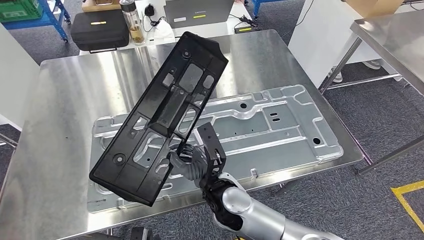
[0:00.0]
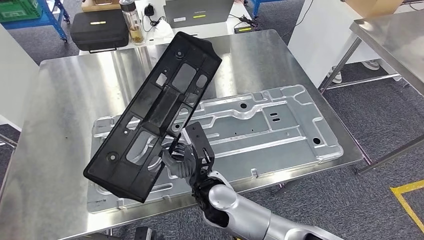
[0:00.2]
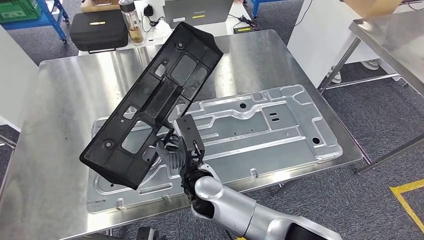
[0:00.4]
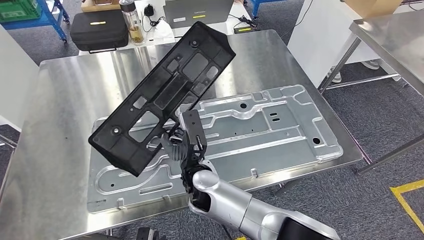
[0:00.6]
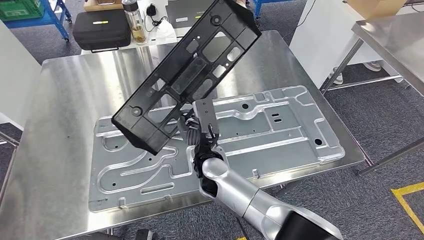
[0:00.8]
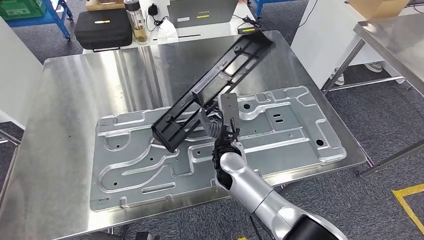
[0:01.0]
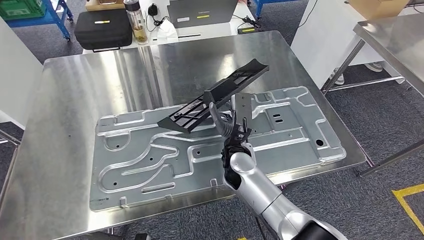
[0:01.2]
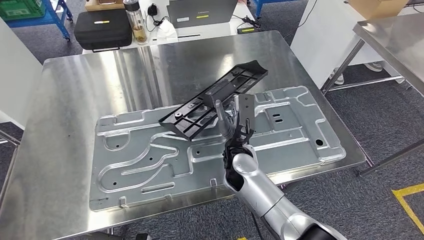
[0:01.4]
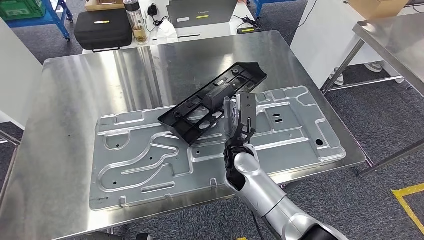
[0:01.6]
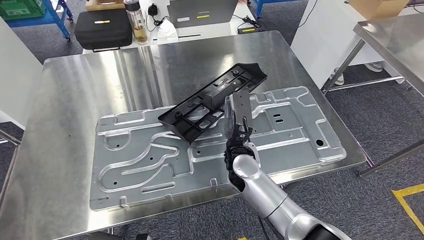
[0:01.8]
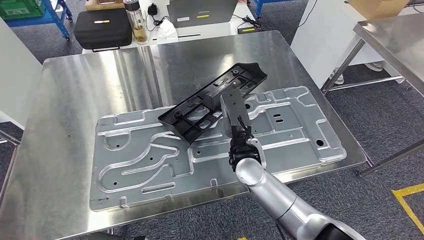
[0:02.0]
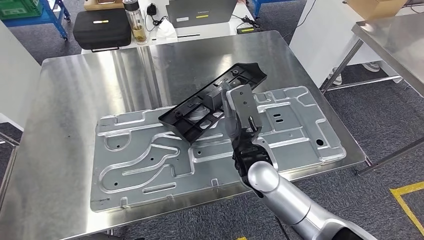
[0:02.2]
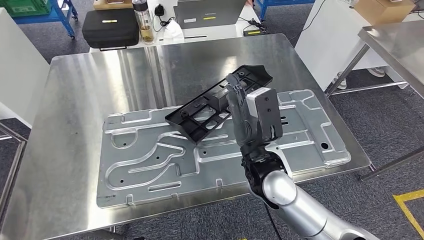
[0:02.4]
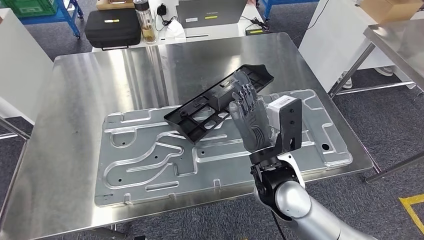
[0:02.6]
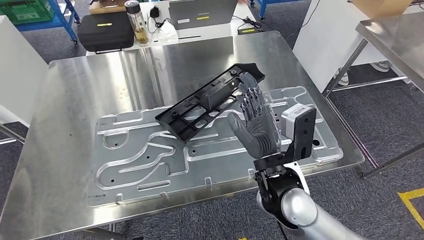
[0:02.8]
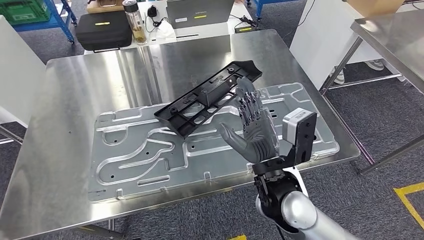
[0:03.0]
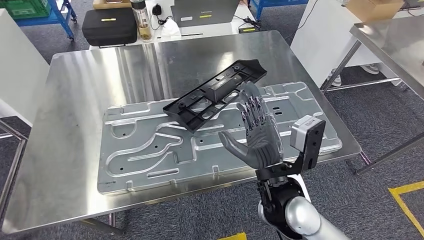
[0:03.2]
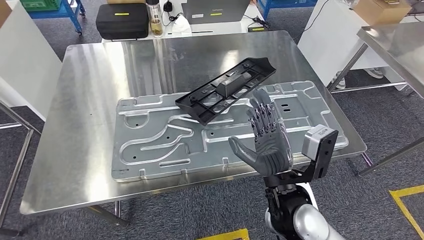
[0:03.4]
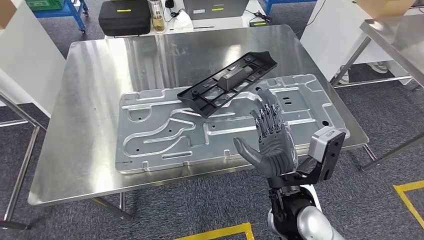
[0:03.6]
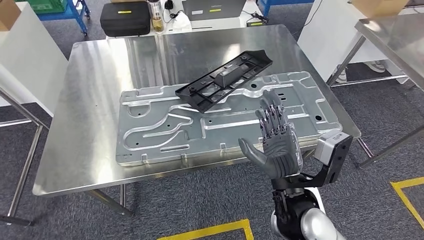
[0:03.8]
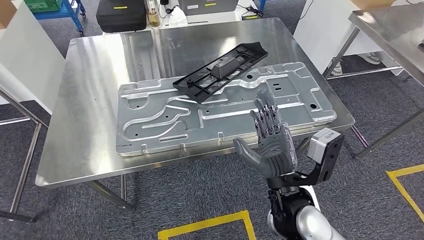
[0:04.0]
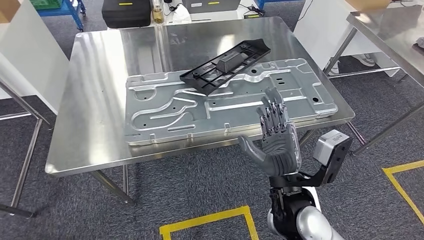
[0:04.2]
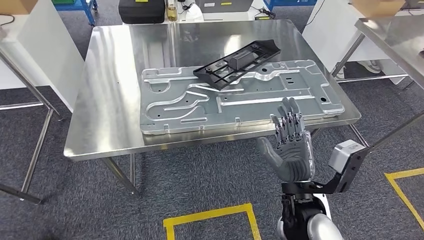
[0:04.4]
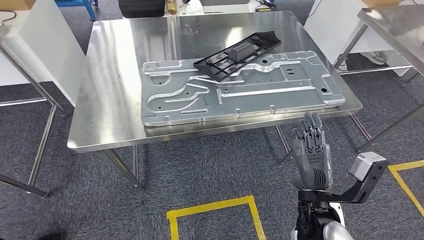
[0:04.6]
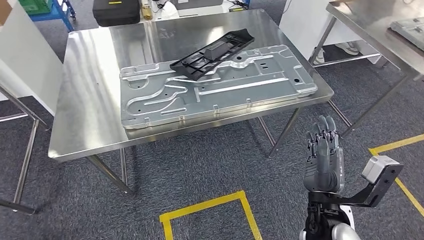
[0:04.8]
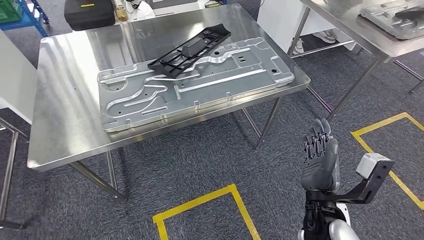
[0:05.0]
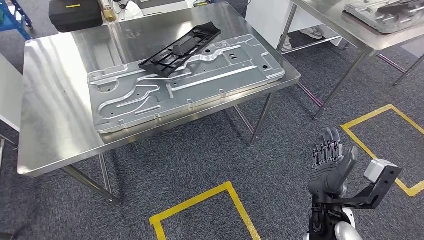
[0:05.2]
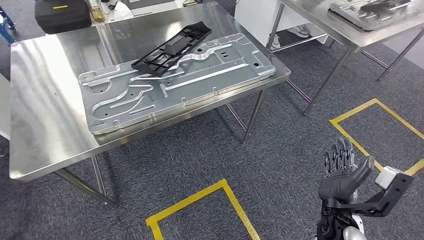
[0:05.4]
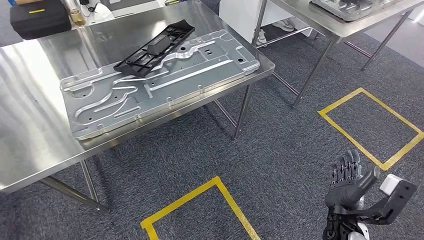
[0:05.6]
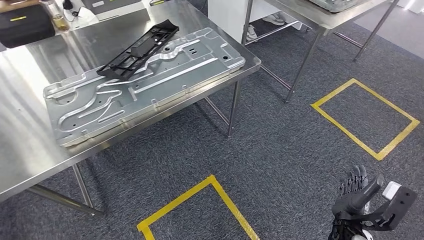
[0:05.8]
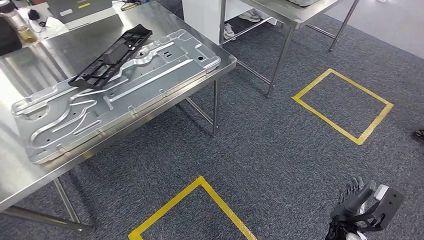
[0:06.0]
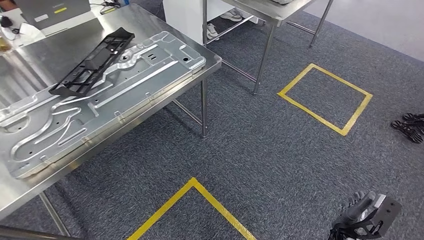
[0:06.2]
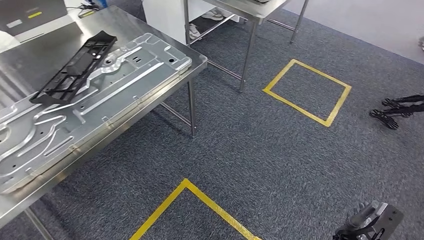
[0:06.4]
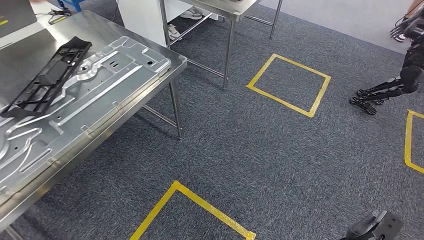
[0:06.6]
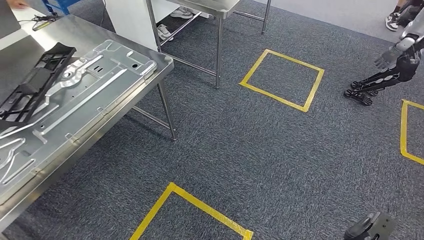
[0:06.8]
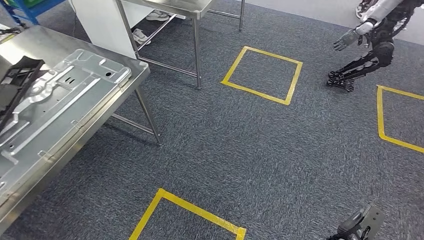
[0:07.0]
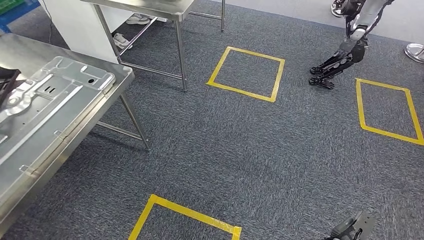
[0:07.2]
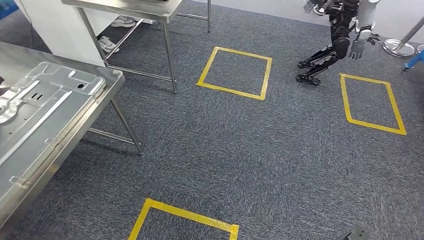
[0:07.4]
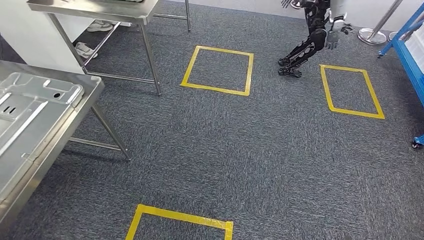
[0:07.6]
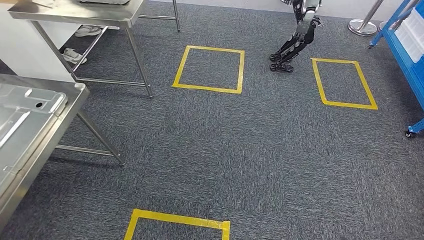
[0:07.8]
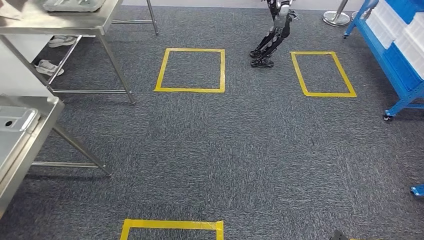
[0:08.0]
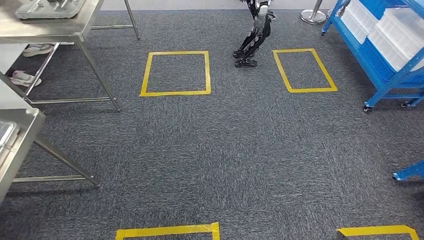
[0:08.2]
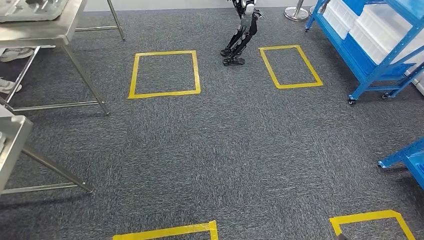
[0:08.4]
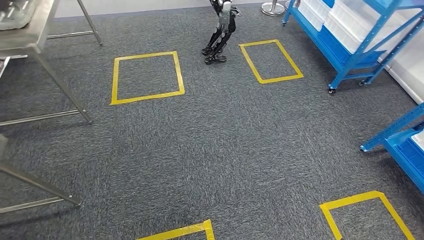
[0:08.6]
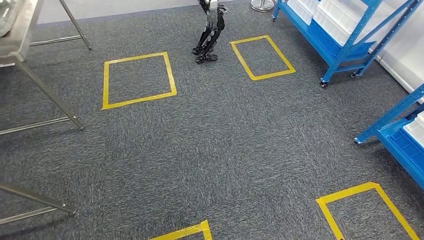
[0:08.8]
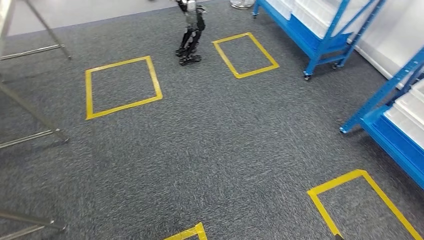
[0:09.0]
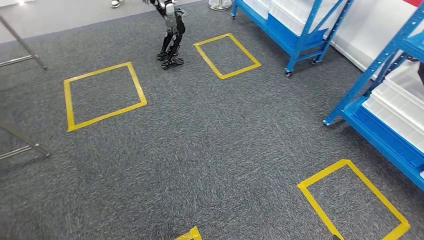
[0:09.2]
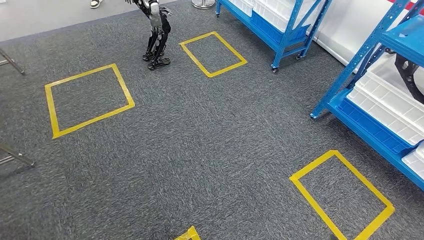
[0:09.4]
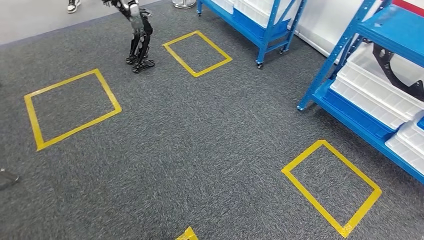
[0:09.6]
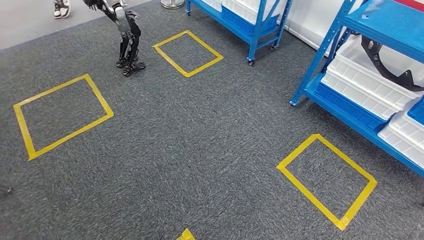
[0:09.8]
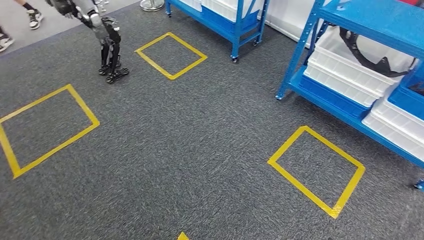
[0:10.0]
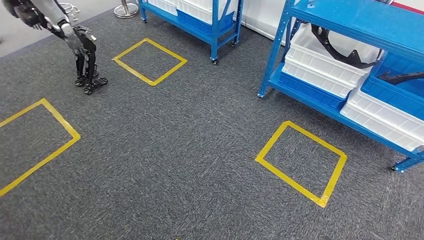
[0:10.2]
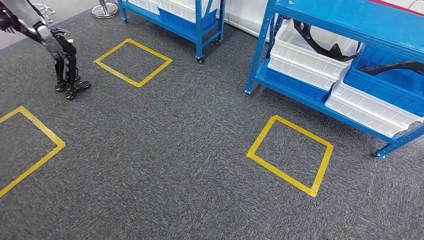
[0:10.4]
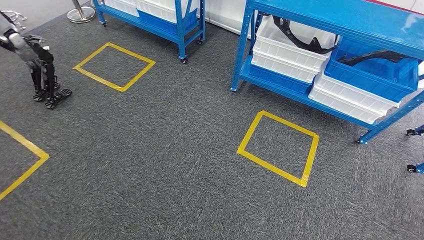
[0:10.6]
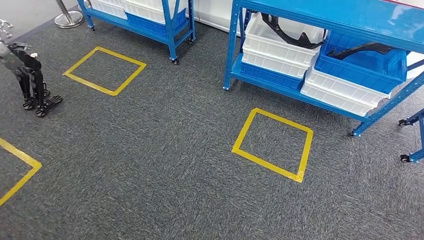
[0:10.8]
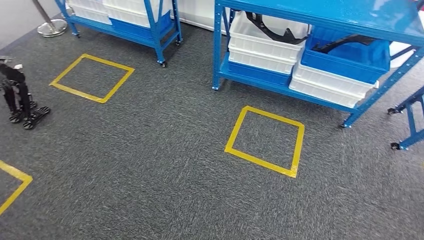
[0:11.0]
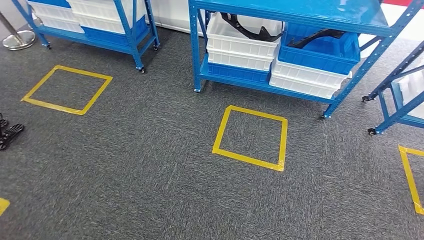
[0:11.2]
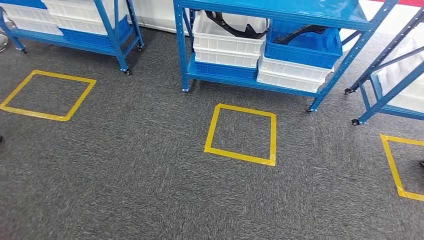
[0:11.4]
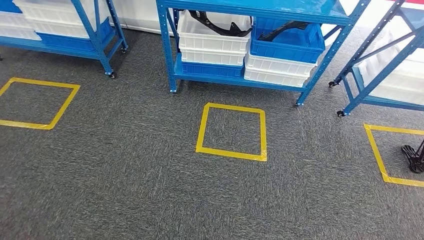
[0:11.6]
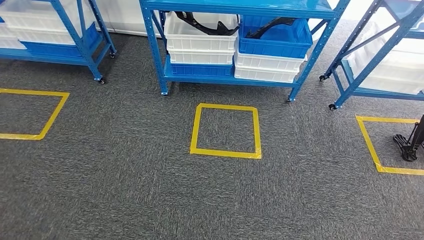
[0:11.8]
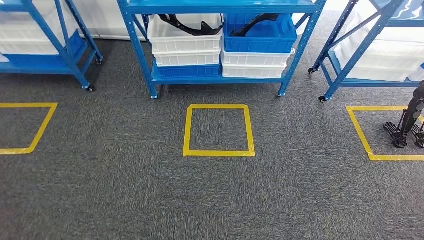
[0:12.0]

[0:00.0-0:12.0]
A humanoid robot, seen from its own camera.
Step, 0:00.0 to 0:04.8: Insert the large material into the corresponding hole on the workbench.

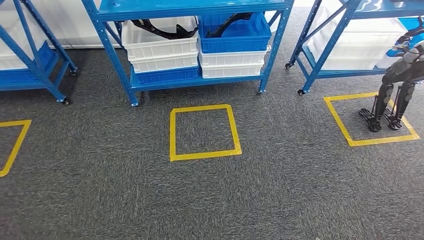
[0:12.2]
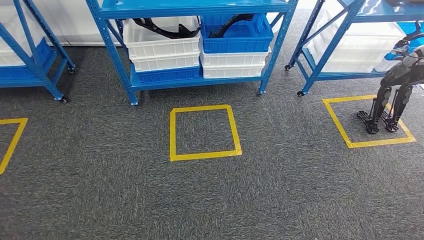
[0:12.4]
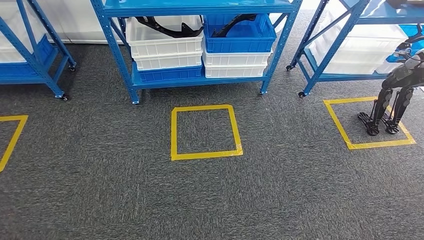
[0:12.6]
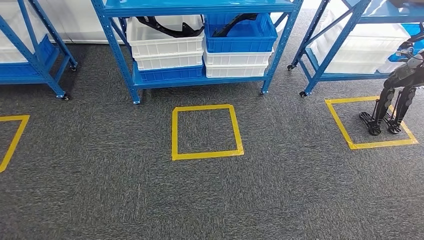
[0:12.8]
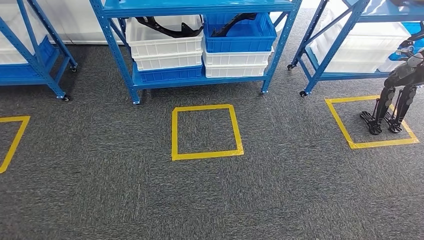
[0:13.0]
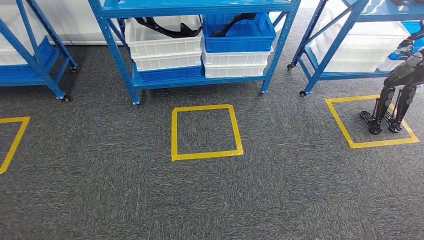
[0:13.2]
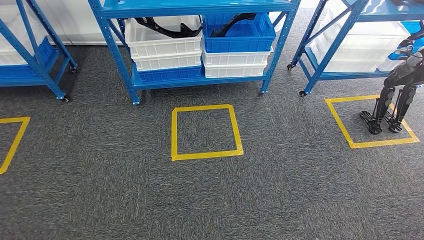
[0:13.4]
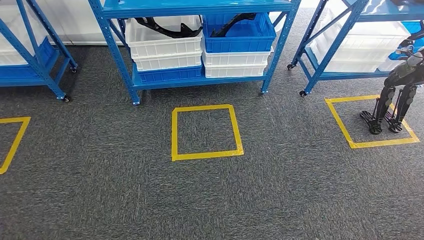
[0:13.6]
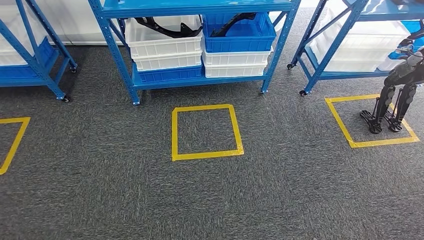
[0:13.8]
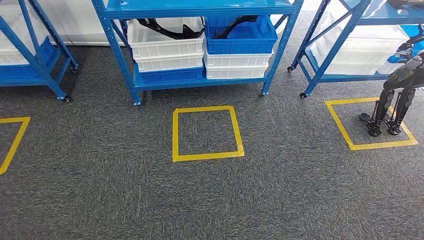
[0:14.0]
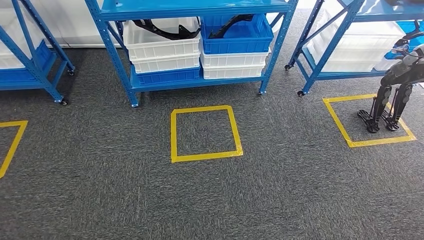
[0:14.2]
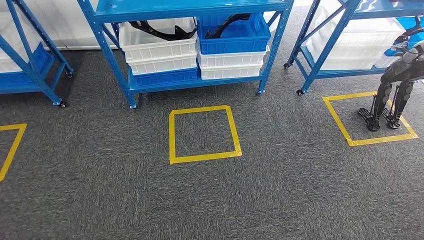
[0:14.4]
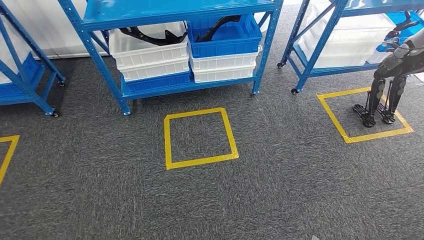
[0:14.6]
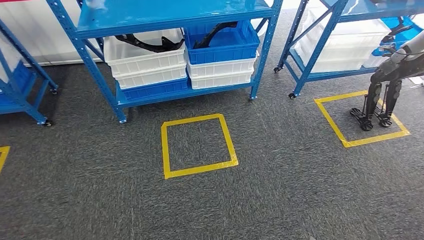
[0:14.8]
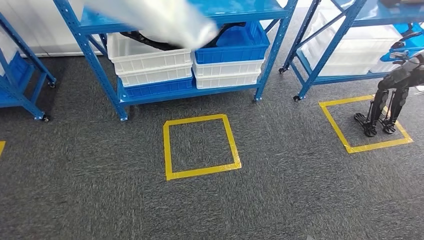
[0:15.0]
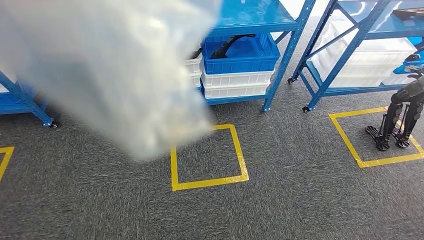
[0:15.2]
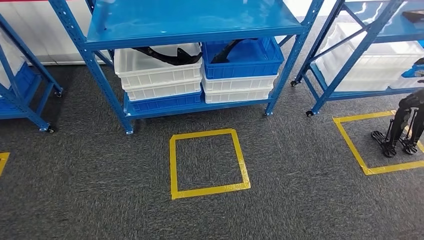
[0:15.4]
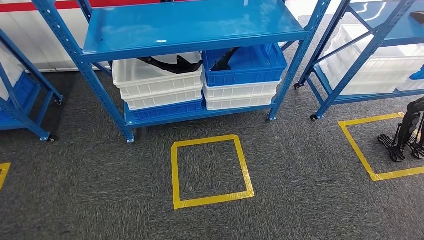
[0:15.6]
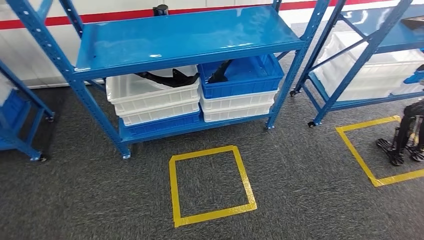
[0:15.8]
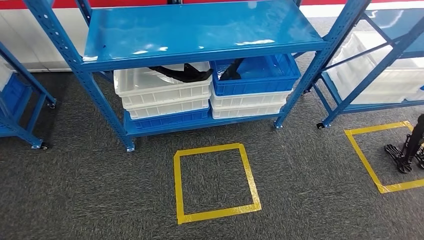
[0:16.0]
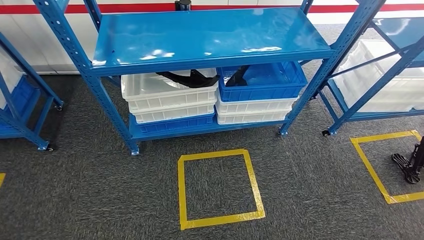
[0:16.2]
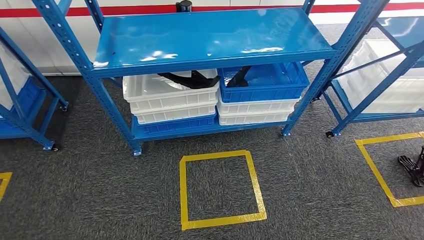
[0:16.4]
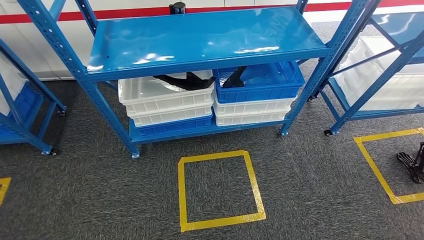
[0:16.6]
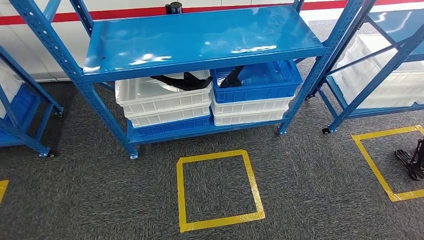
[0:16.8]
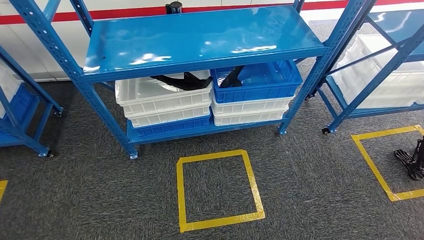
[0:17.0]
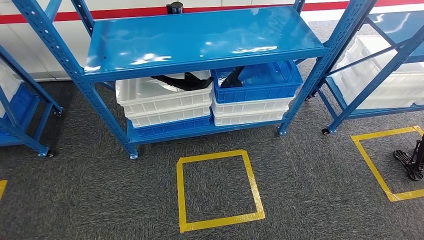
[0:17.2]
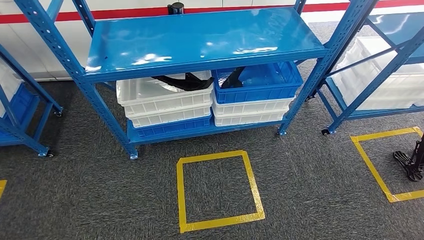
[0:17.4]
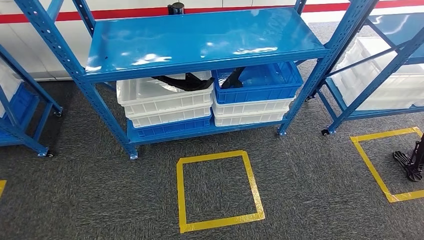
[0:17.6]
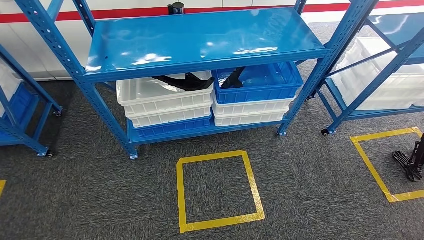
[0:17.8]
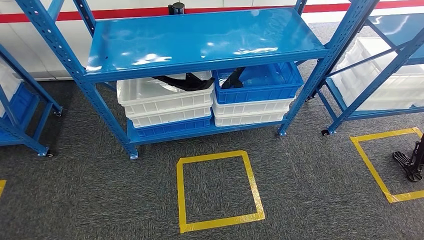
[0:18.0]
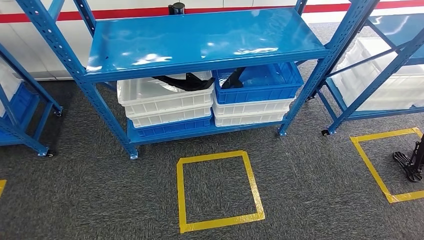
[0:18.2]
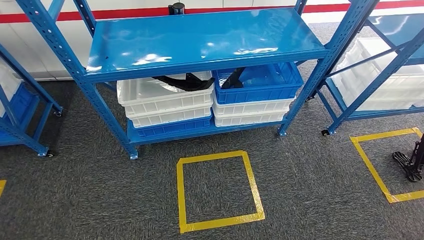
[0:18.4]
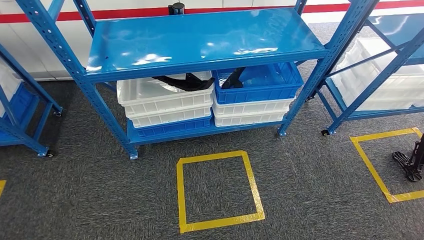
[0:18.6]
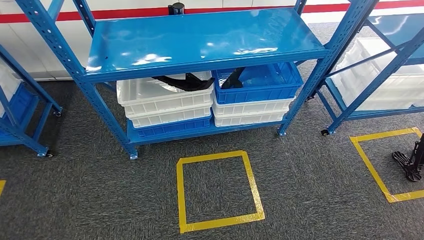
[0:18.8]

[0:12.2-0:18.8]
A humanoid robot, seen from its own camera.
Step, 0:12.2 to 0:18.8: Move to the initial position of the shelf.
0:12.2 to 0:13.8: The two hands keep their place.
0:17.2 to 0:18.8: The right hand is displaced backward by about 5 cm.
